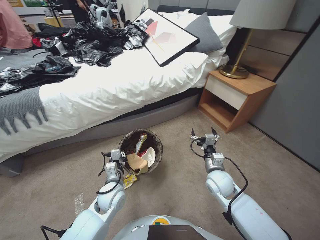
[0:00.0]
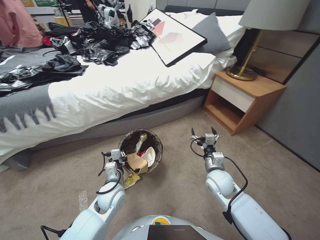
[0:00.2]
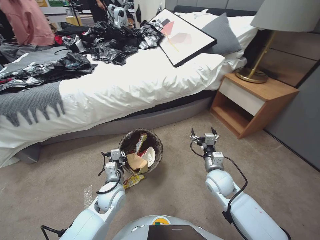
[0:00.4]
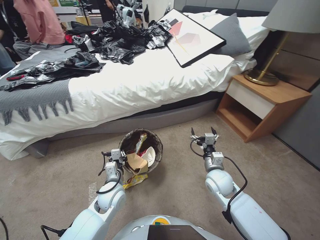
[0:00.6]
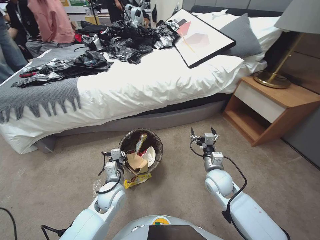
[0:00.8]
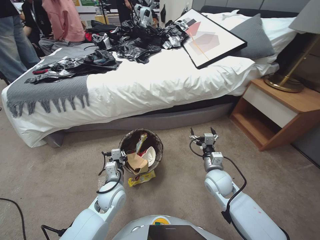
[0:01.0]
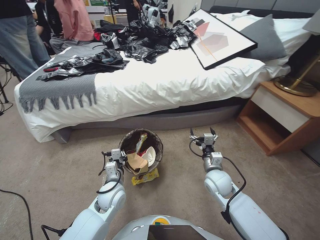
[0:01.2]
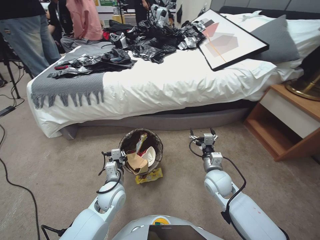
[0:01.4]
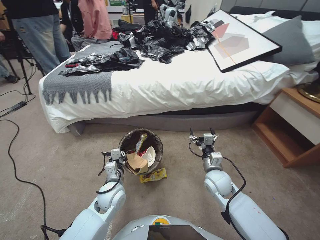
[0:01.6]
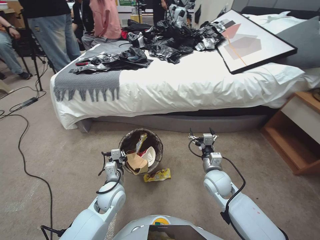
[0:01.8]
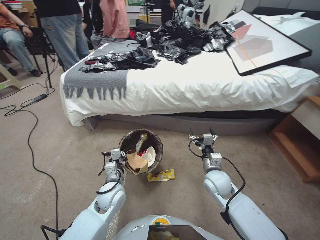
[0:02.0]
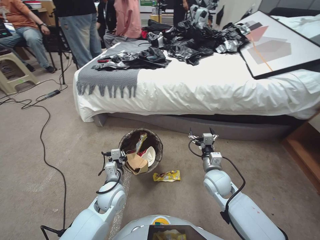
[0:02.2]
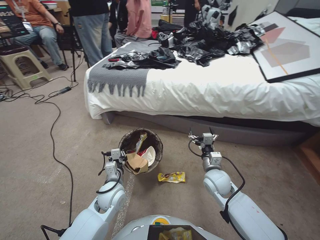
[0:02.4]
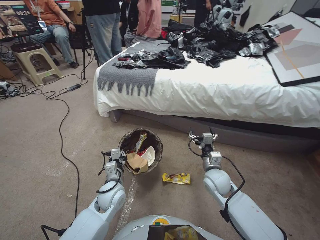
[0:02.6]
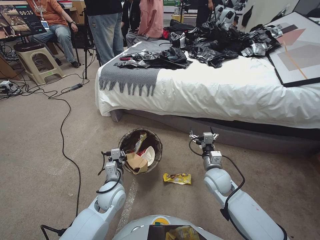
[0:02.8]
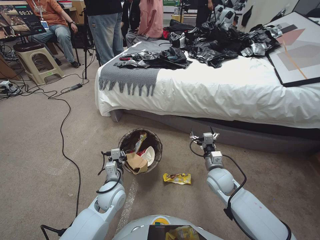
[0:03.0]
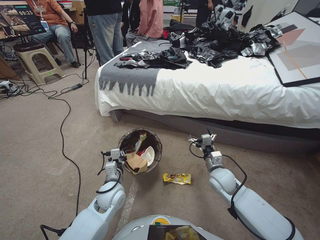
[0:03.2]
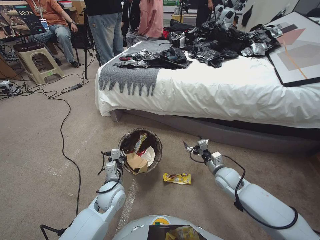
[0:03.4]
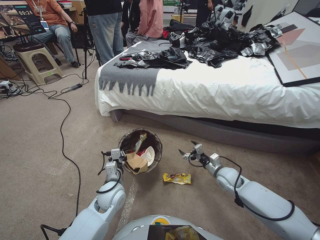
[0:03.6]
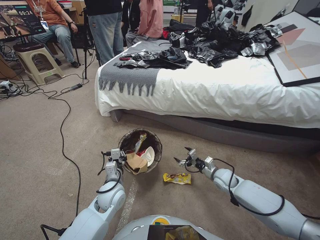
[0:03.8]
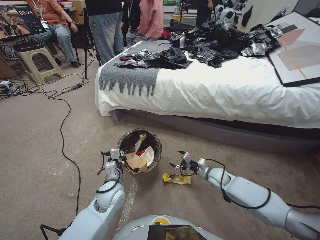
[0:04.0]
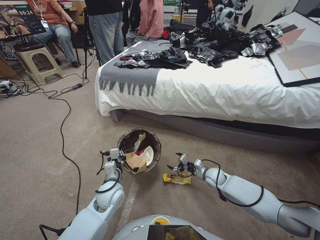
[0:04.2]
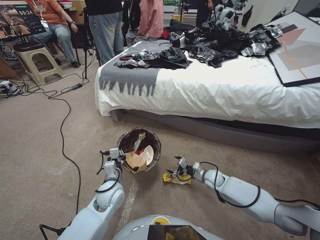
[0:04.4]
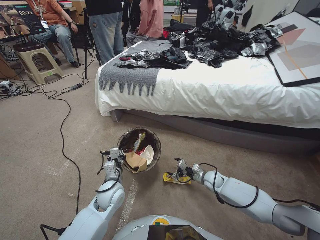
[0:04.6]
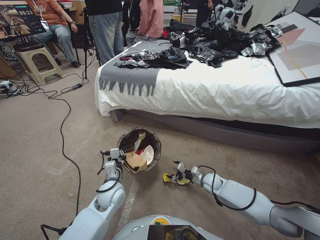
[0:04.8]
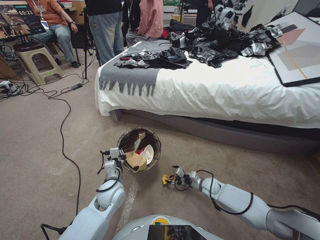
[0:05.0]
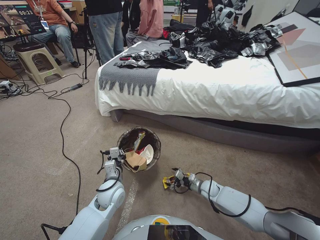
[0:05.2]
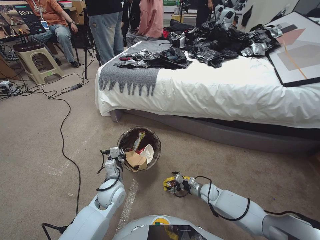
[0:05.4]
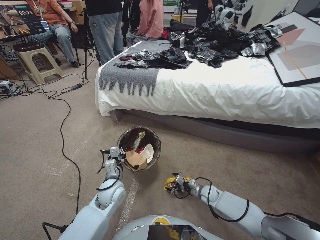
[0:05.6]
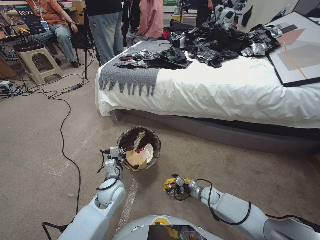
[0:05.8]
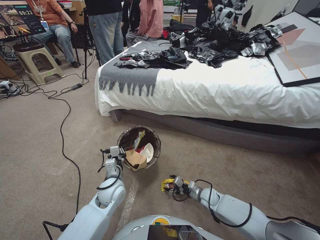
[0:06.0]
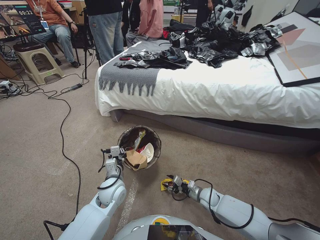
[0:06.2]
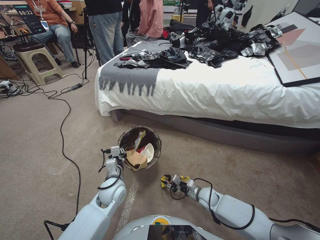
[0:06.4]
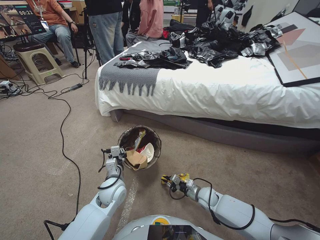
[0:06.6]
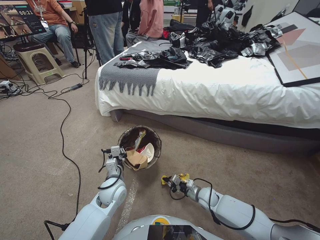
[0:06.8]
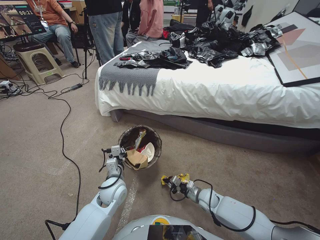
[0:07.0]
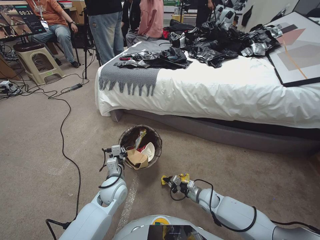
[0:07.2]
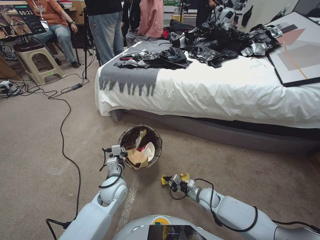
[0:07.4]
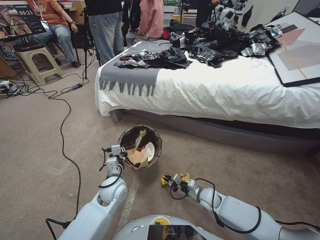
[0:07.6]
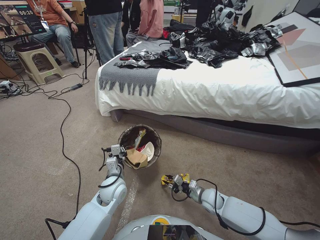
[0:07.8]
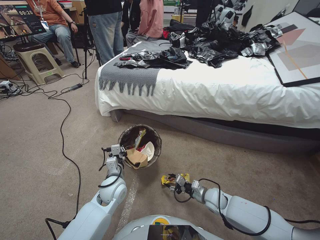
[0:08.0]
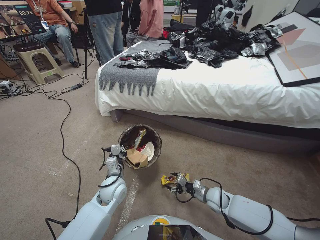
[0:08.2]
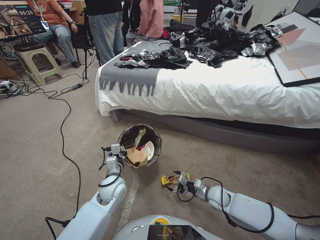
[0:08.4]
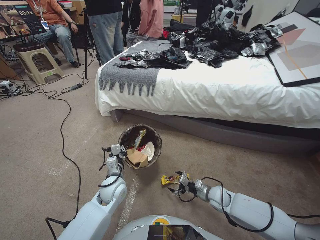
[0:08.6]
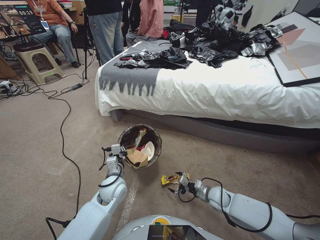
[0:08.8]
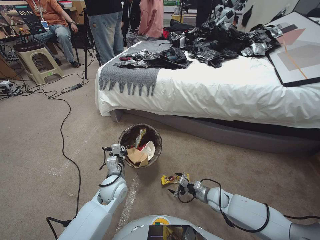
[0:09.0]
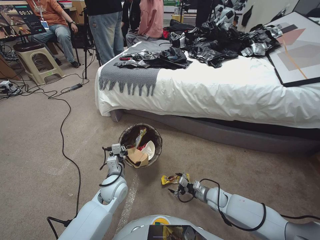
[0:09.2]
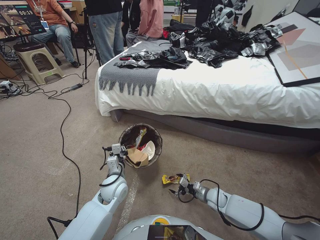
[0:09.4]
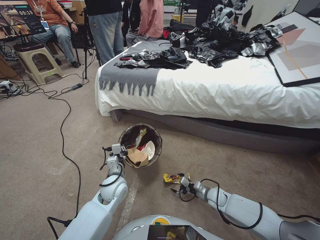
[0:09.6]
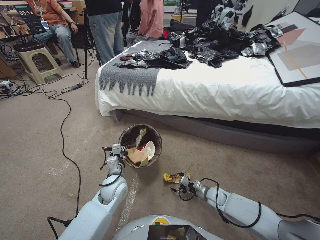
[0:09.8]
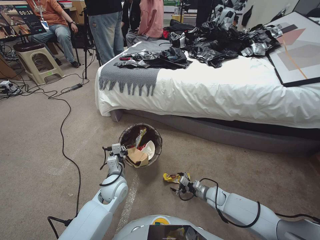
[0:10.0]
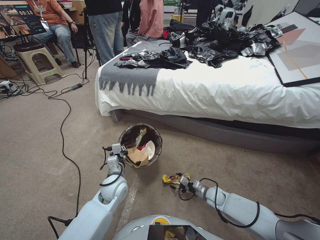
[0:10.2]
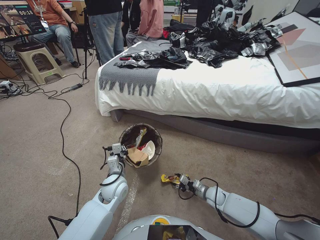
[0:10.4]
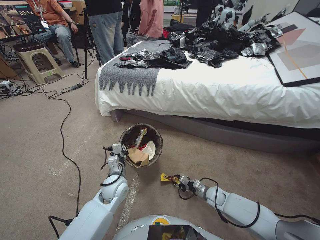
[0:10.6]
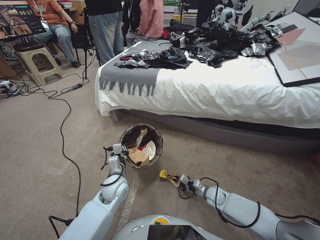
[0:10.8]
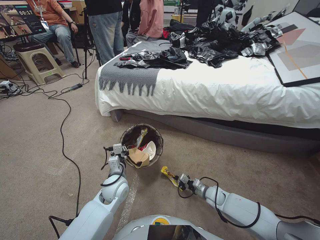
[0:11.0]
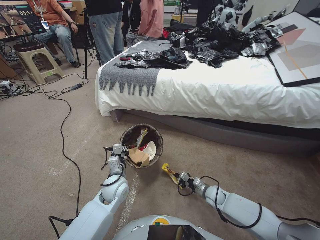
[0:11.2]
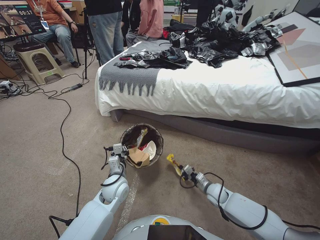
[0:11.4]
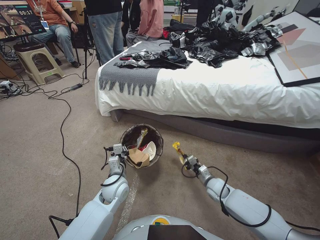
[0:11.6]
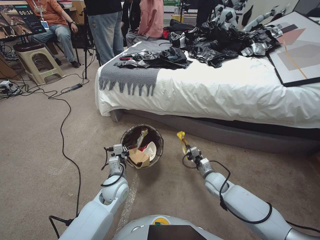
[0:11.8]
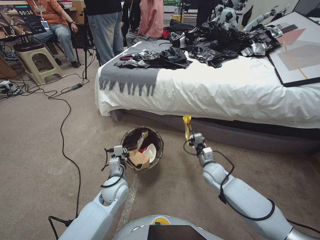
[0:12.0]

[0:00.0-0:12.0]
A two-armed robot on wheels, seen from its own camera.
Task of the whole recording: Pick up the trash bin, then pick up the garbage from the floor and place it into the trash bin.
0:03.0 to 0:04.4: The right gripper shifts roughly 15 cm downward and forward.
0:04.4 to 0:06.0: The right gripper travels downward and backward by approximately 10 cm.
0:06.0 to 0:07.6: The right gripper closes its fingers.
0:07.6 to 0:09.0: The right gripper opens.
0:09.0 to 0:10.4: The right gripper closes up.
0:10.4 to 0:12.0: The right gripper moves upward and forward, roughly 15 cm, and closes.

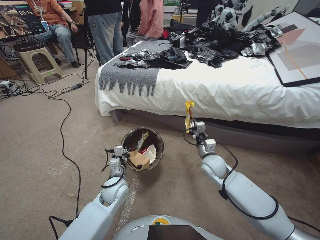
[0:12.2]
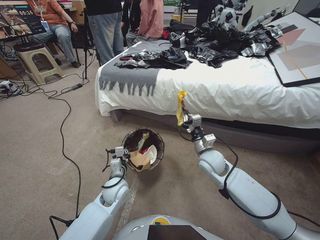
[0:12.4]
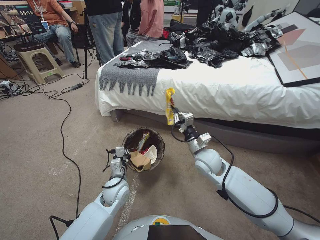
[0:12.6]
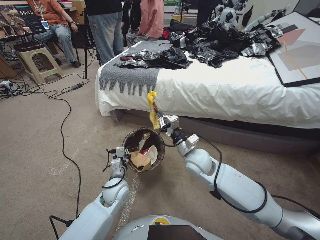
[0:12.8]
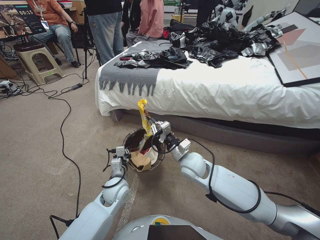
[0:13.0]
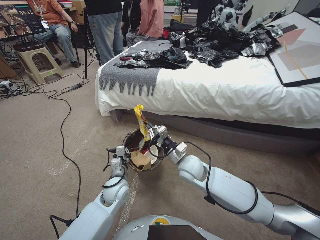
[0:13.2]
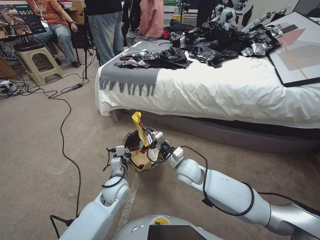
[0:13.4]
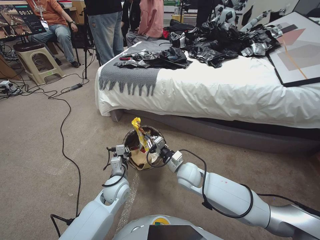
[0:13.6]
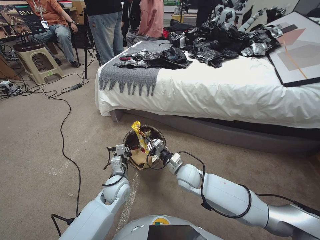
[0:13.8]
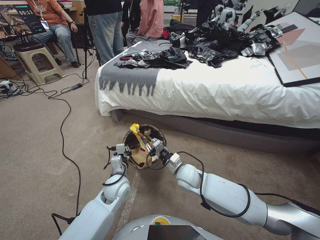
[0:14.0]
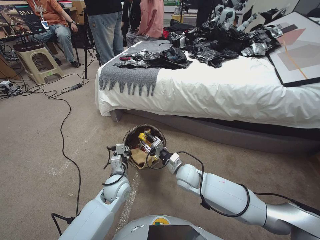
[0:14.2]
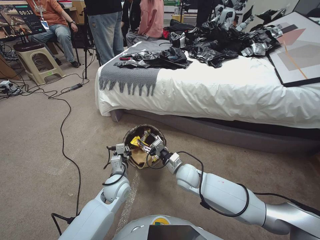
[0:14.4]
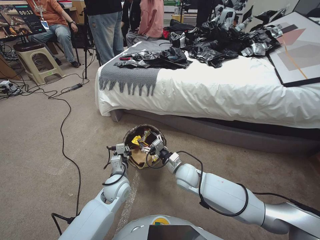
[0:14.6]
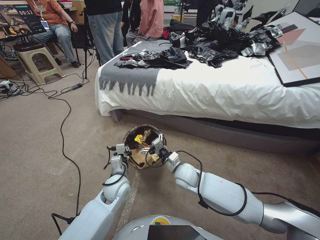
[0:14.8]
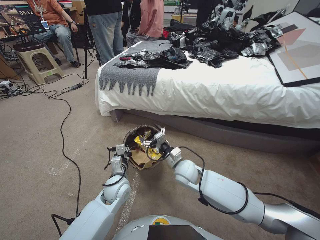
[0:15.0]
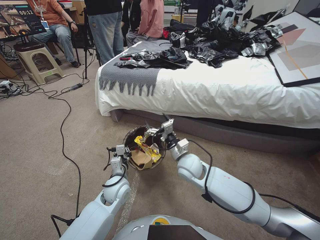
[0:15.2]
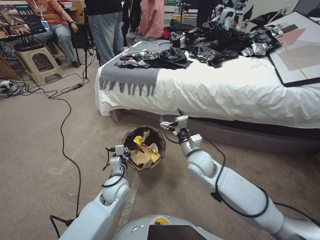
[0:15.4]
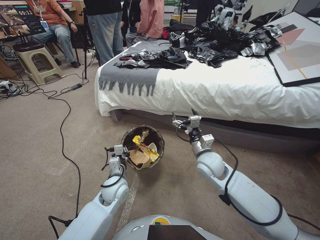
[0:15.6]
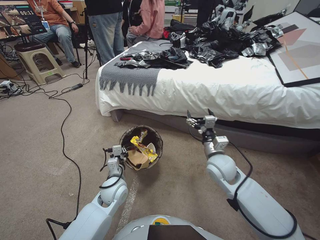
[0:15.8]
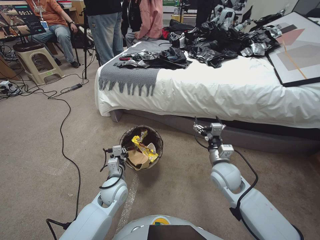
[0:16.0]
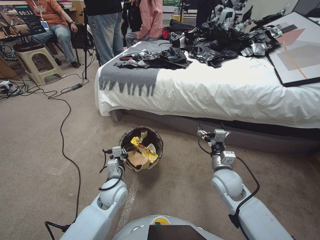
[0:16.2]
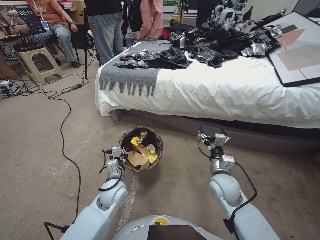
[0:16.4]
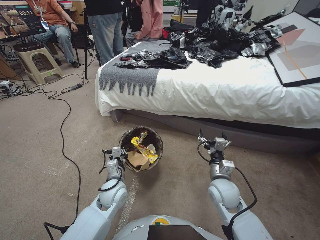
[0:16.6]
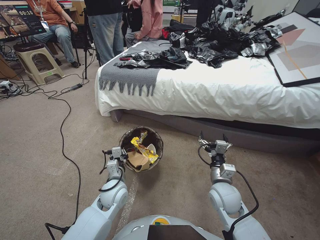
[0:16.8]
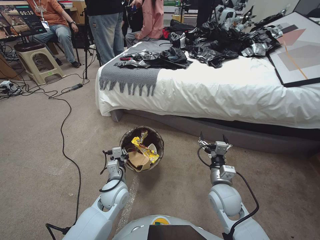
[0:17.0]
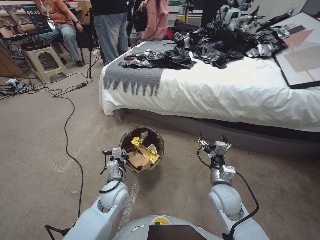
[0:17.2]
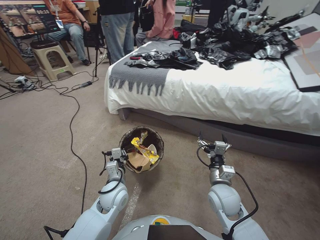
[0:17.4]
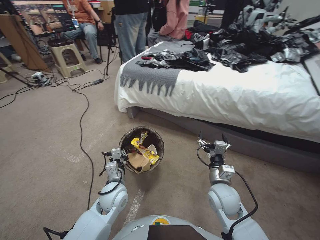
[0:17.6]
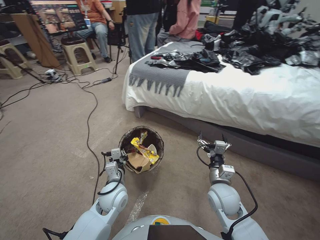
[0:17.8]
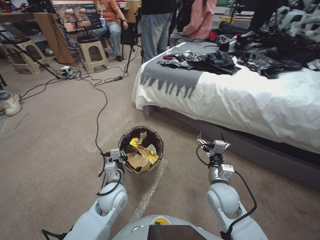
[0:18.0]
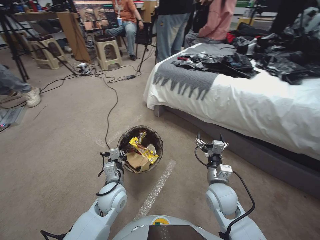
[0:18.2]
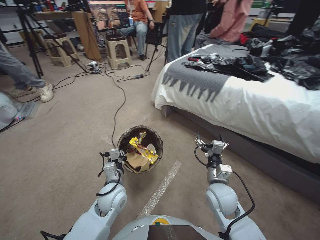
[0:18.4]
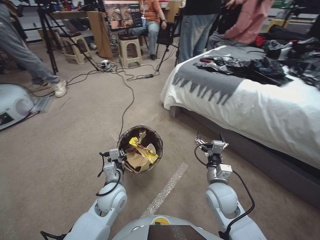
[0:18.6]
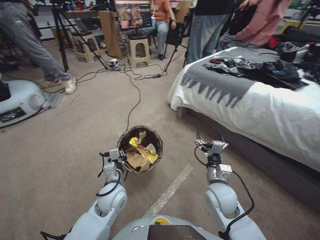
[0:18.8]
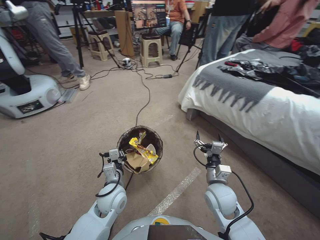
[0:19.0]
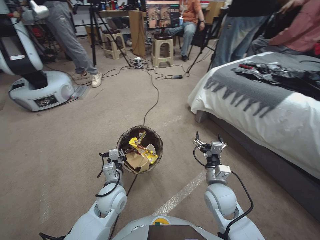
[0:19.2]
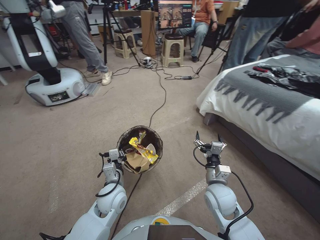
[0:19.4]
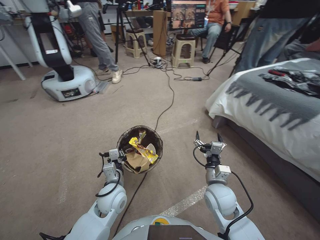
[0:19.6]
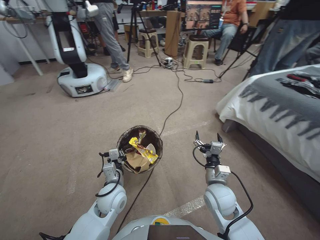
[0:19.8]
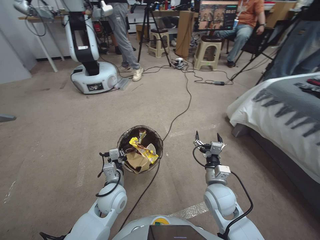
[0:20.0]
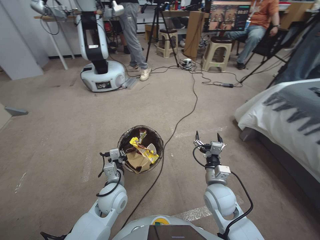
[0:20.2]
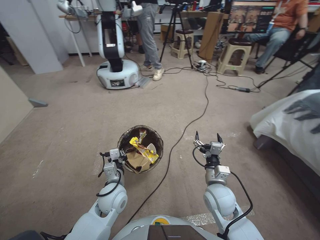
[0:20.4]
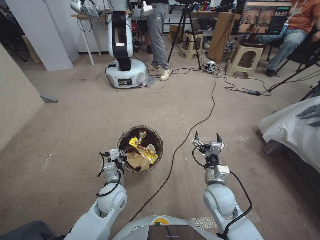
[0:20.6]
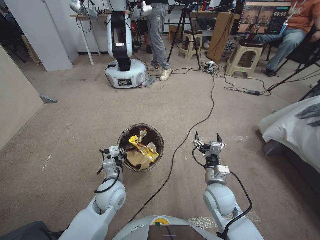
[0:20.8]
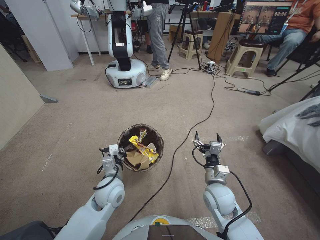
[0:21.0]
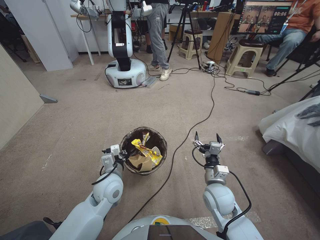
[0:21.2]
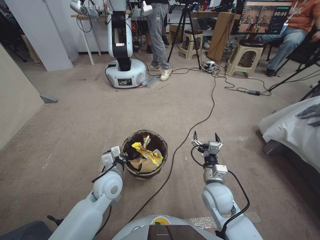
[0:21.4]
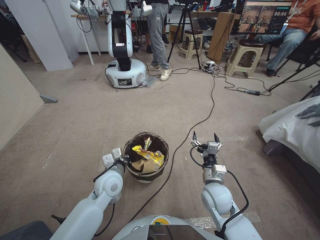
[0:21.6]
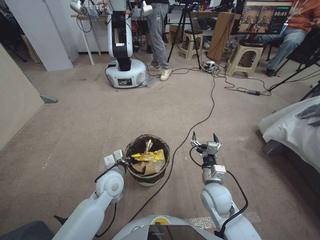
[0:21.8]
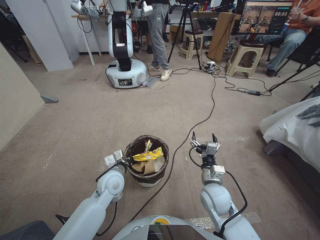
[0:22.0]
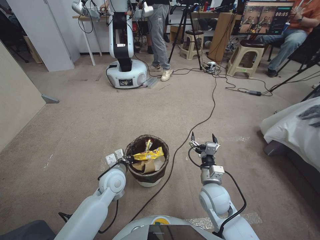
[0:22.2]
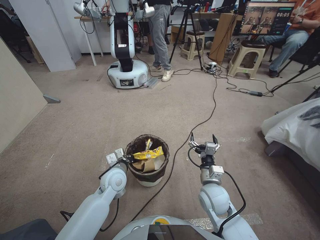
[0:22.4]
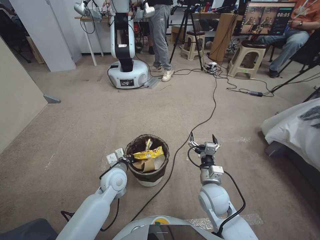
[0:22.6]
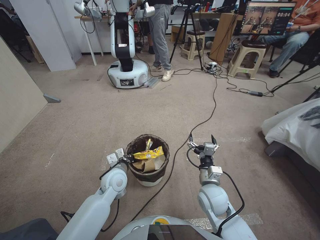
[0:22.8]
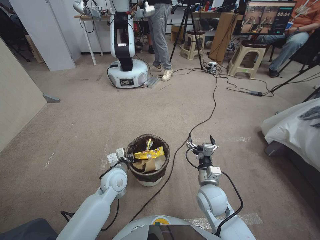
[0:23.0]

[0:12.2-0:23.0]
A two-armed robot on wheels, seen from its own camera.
Task of the whole recording: Pick up the trash bin, then pick up the garbage from the floor and place it into the trash bin.
0:12.2 to 0:13.8: The right gripper moves to the left, approximately 10 cm.
0:13.8 to 0:15.2: The right gripper opens its fingers.
0:15.2 to 0:16.8: The right gripper heads to the right and backward, covering roughly 15 cm.
0:21.4 to 0:23.0: The left gripper changes place by approximately 5 cm.
